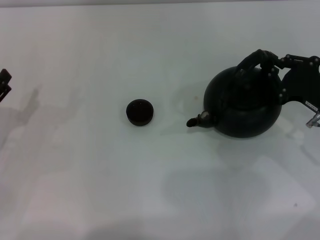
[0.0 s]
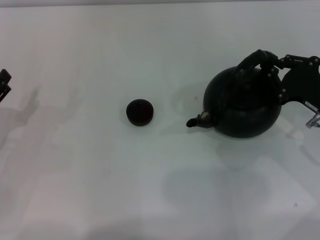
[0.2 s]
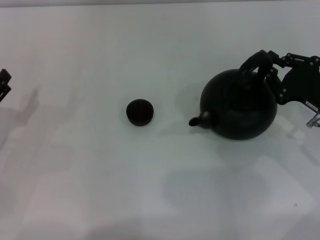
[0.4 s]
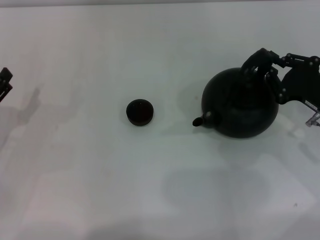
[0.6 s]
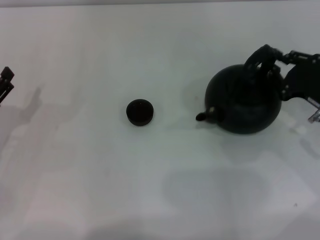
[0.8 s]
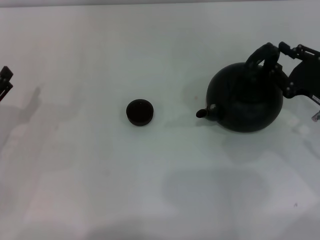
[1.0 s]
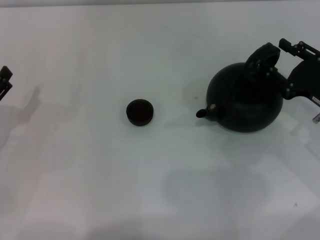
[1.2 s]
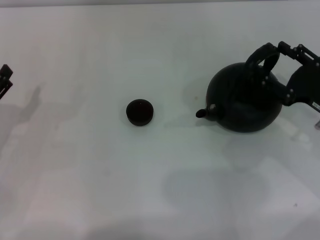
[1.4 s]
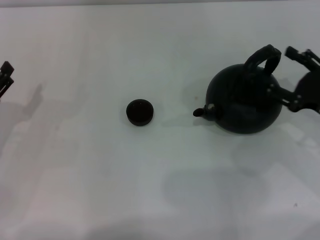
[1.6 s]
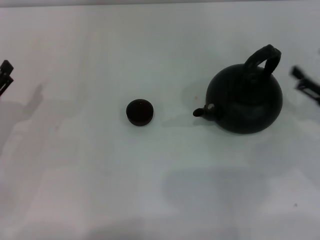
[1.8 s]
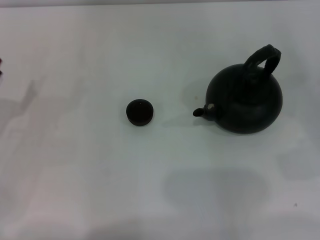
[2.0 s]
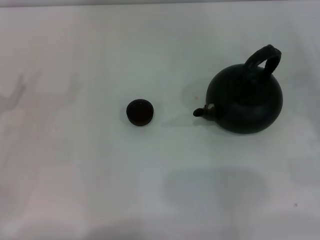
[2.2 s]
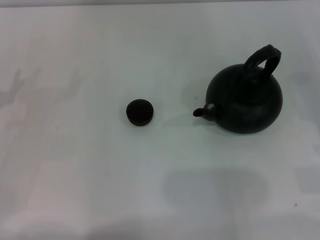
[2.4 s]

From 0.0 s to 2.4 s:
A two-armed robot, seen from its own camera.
Task of the whole recording: Grasp the handle of the teapot with one hand and pour tea into the teacup.
Step, from 0.0 s to 1.6 s: Put down the teapot with the right gripper.
From 0.0 s to 1.2 s: The right gripper opens.
From 1.2 s to 2.4 s: The right gripper is displaced to the right and backward by approximately 15 cm, and opens up.
